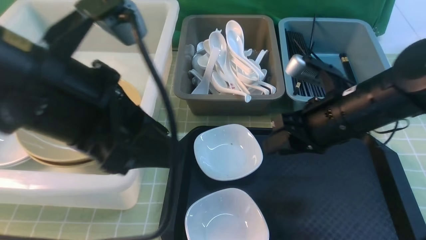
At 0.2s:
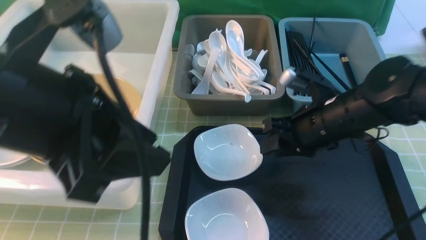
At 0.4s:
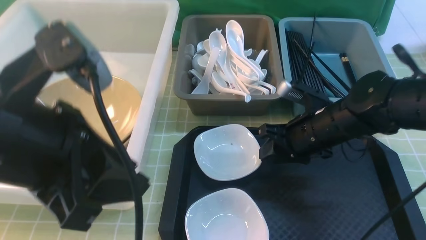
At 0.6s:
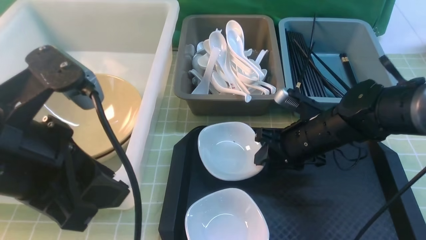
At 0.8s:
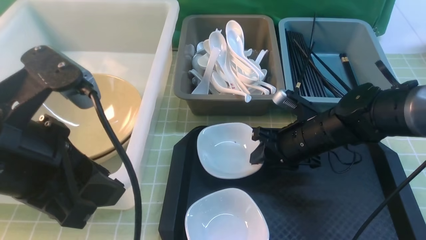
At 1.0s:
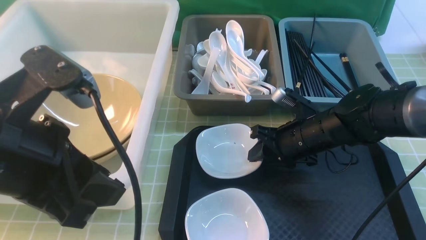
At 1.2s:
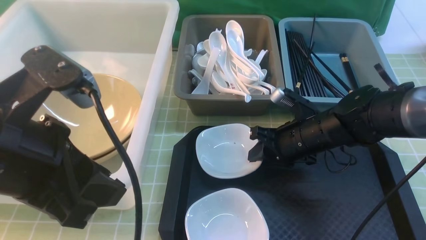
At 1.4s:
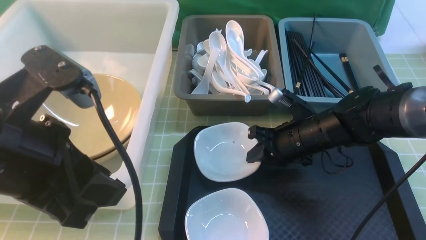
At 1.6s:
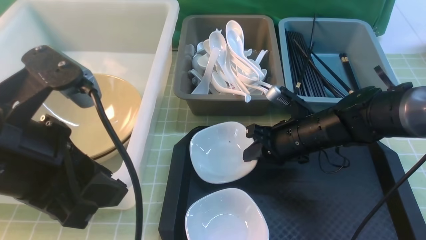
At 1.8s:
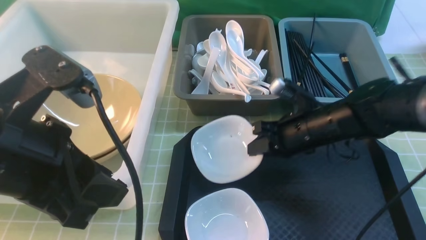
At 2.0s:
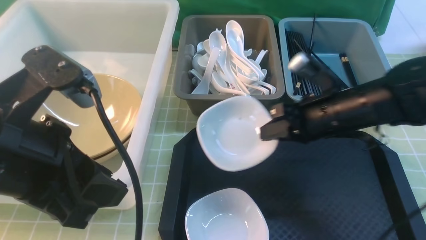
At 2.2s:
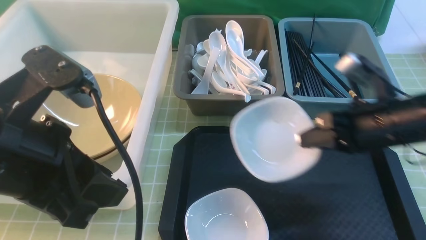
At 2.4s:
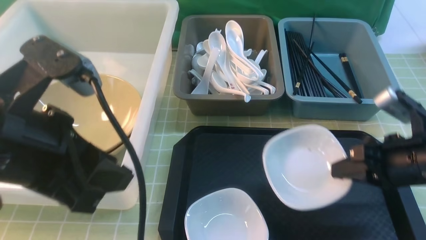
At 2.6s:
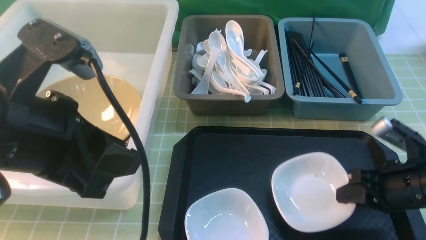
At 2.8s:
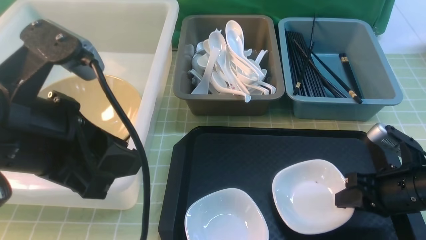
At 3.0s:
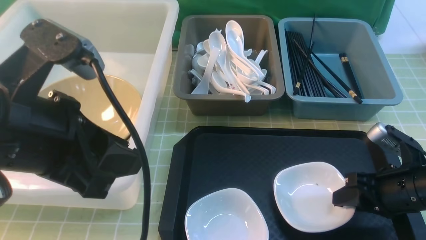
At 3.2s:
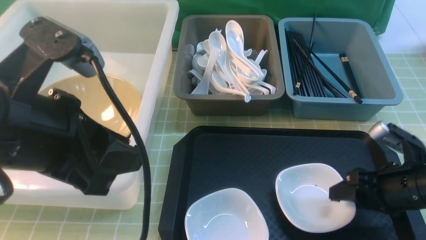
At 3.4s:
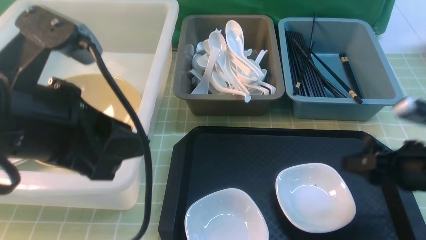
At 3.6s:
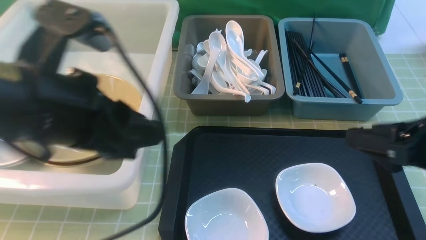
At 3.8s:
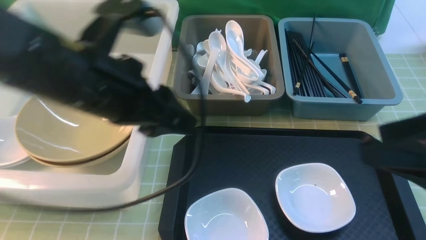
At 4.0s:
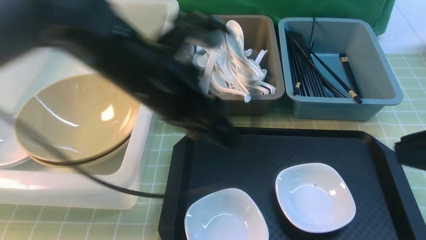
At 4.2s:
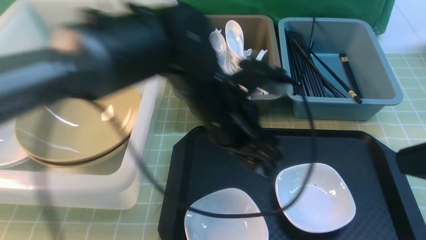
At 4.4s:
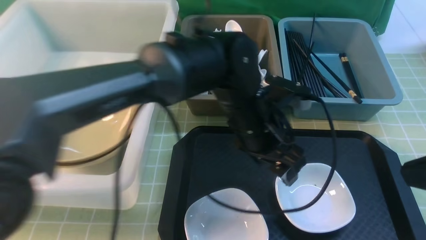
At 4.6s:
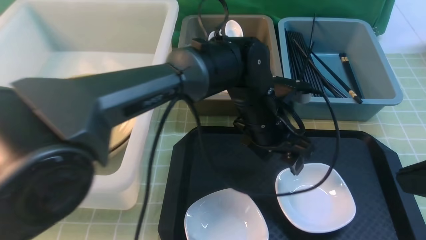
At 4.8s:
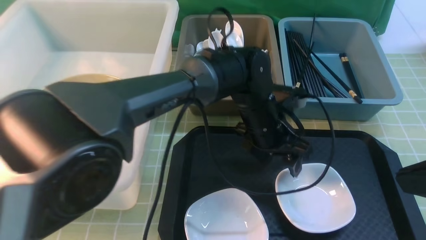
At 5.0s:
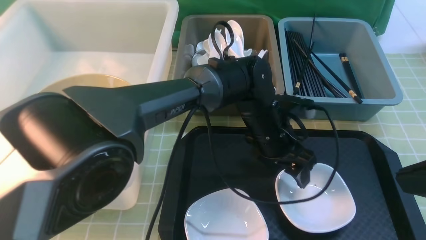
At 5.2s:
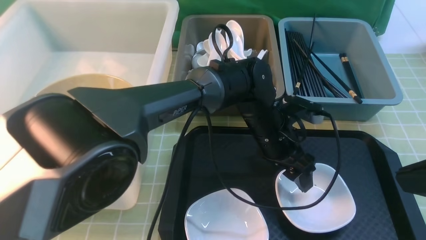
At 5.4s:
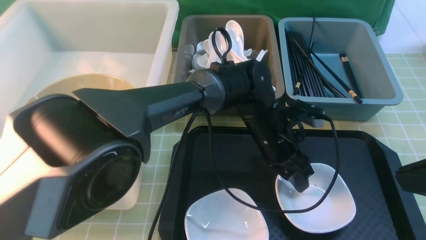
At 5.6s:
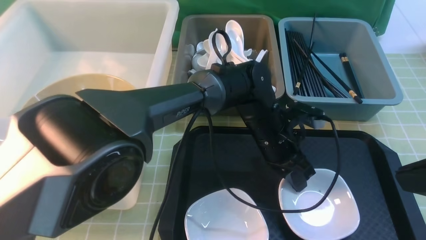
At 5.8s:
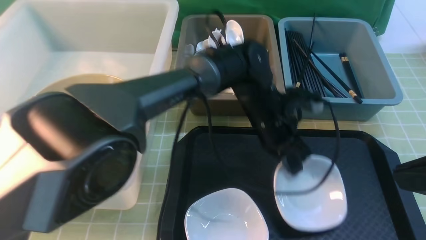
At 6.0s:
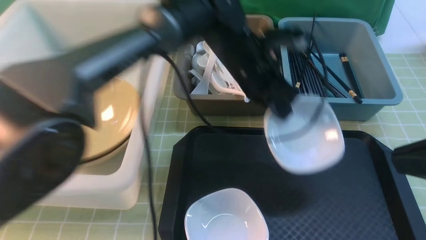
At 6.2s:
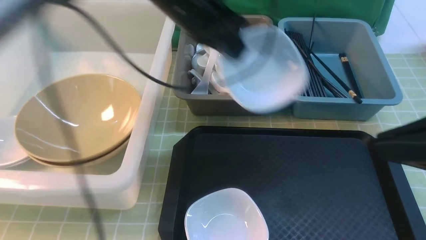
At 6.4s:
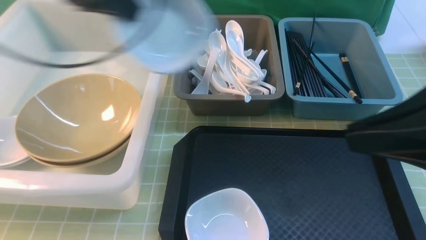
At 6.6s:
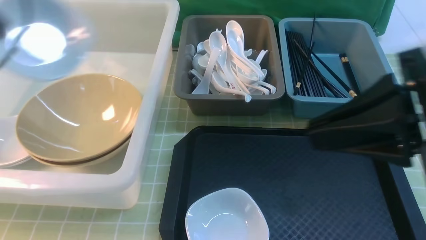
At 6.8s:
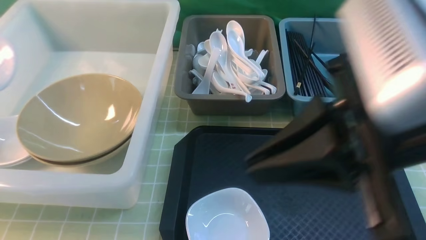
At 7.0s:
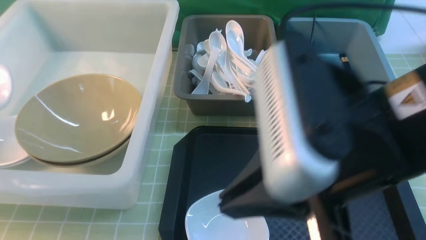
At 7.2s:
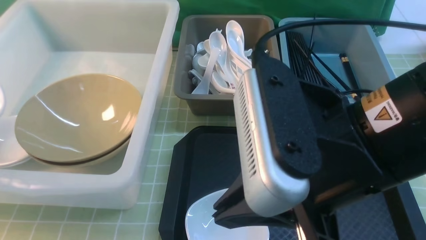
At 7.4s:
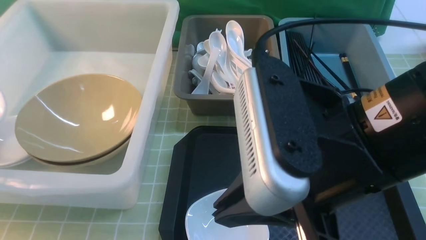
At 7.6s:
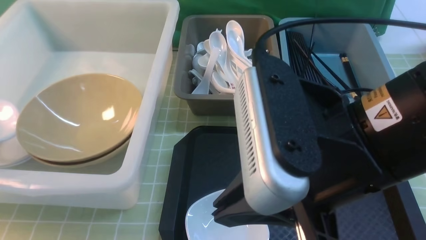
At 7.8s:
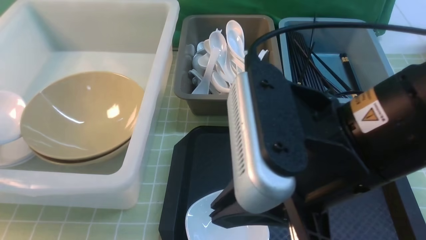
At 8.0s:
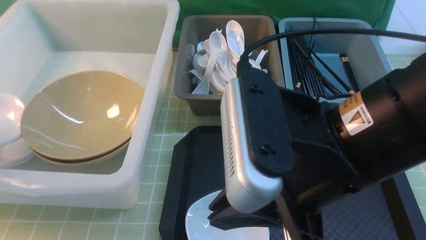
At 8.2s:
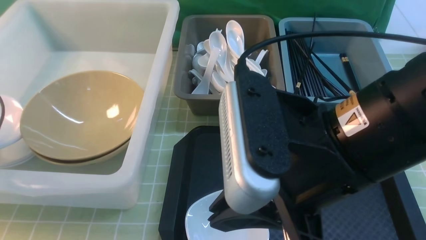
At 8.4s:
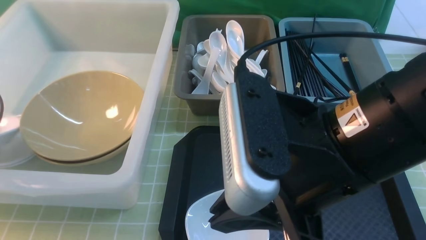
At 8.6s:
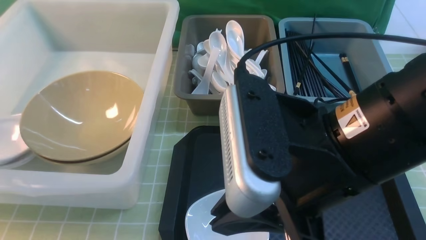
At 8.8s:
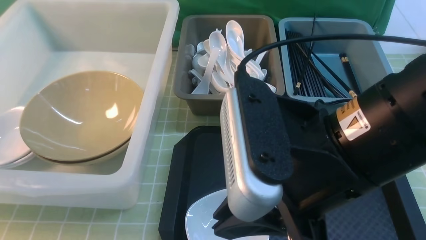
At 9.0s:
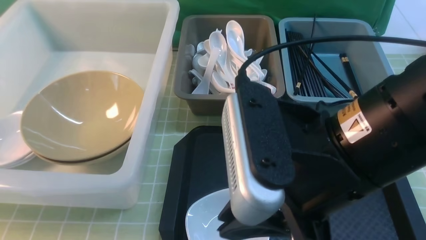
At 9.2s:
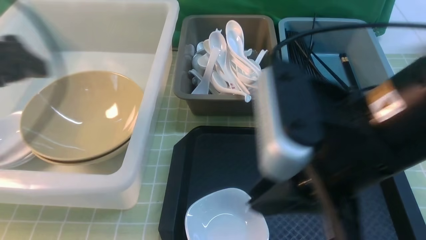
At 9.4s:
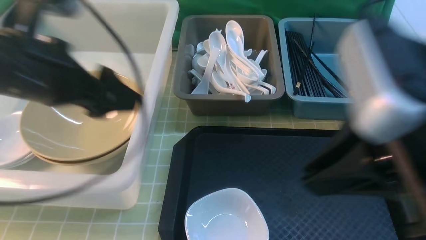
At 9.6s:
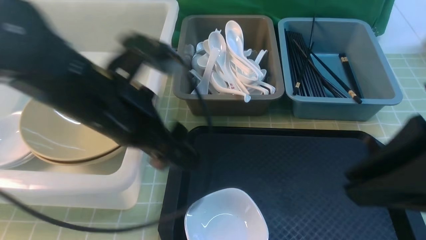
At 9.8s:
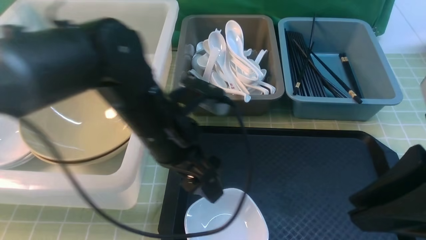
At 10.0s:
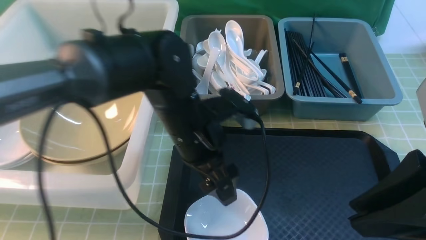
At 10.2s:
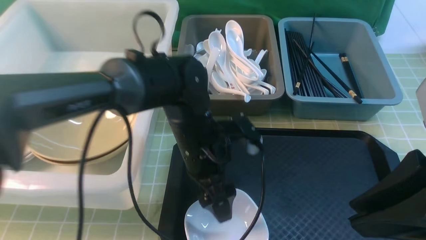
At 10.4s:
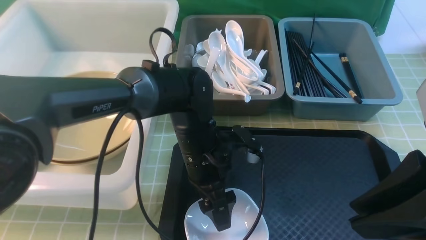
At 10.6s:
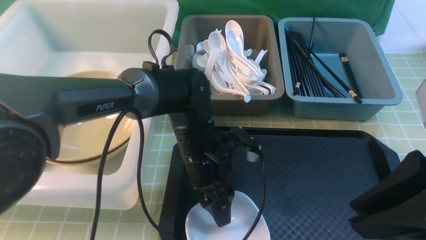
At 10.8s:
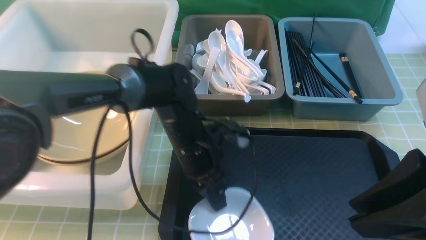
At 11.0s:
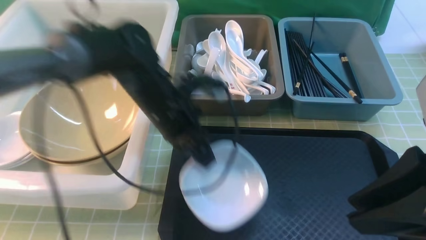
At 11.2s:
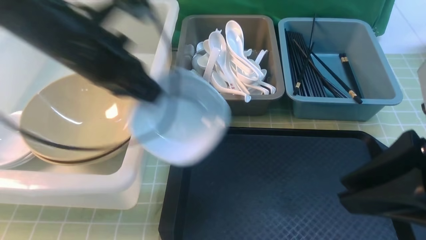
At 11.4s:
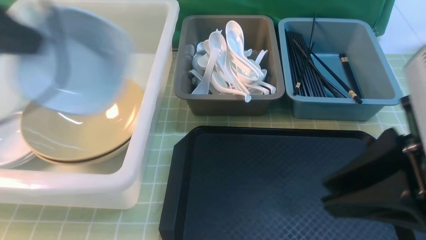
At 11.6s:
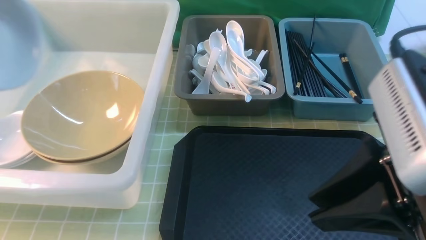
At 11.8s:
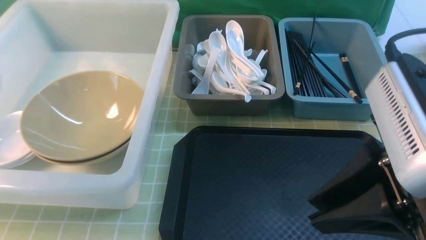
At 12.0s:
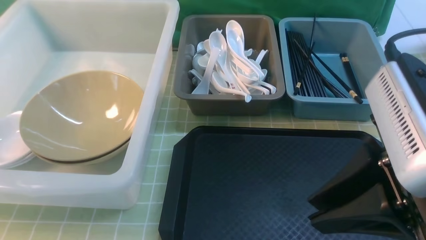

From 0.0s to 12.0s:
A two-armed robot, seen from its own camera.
Task of the whole recording: on green table put chopsticks spoon bowls plates into blue grey white boxes.
Step, from 0.0s to 1.8s: use the right arm to grab the plate.
Step, from 2.0s to 3.6s: use the right arm to put the plate on the tray.
Step, from 3.8s to 5.8s: use the left arm to grab the plate.
Step, from 6.2s to 9.0s: use the left arm to put the plate into the large storage box on the left.
Step, from 9.2s to 11.0s: use the left arm to grab the plate.
From 0.0s to 1.6s: The left gripper ends up about 5 cm from where it was. Meanwhile the right gripper moves downward, approximately 10 cm, and closes its fingers.
From 1.6s to 3.0s: The right gripper moves to the right and backward, roughly 15 cm, and opens up.
From 3.0s to 4.4s: The right gripper shifts approximately 20 cm upward and backward, and closes up. Meanwhile the left gripper goes some 30 cm to the right, forward and downward, and opens up.
From 4.4s to 6.0s: The left gripper shifts approximately 10 cm forward and upward, and closes its fingers.
From 6.0s to 7.6s: The left gripper heads to the left, covering some 40 cm; the right gripper is displaced to the left by about 15 cm.
From 7.6s to 9.0s: The left gripper moves to the right and upward, approximately 10 cm, and opens.
From 9.0s to 10.4s: The right gripper goes some 10 cm to the right. Meanwhile the left gripper goes some 35 cm to the right and downward.
From 10.4s to 12.0s: The left gripper heads to the left and upward, covering approximately 40 cm, and closes.

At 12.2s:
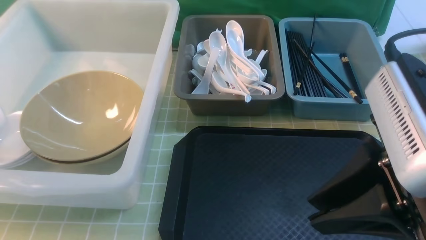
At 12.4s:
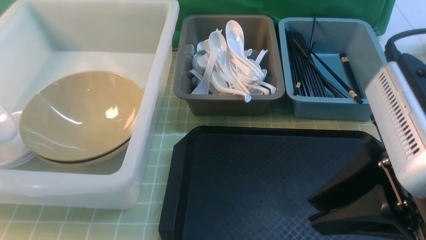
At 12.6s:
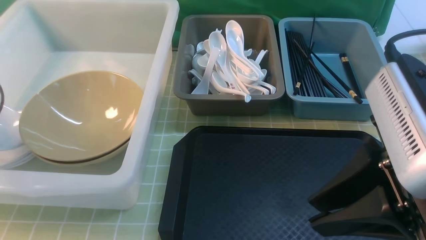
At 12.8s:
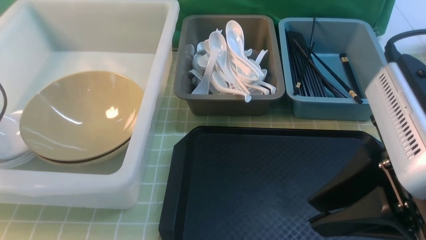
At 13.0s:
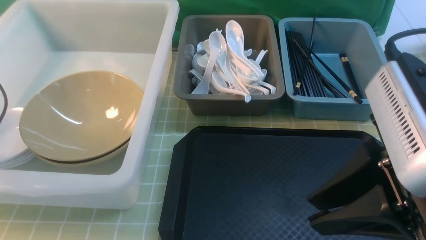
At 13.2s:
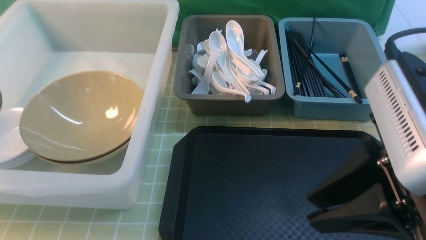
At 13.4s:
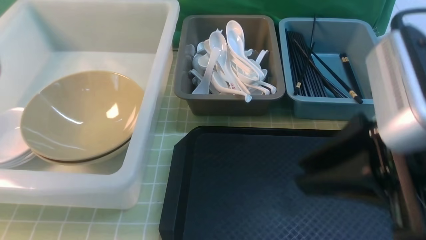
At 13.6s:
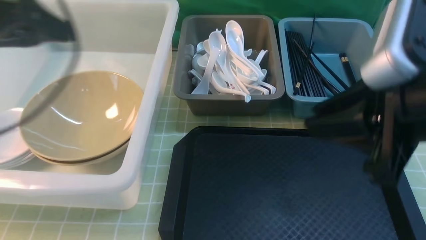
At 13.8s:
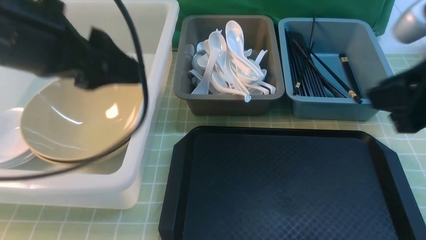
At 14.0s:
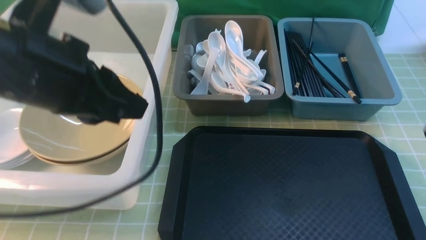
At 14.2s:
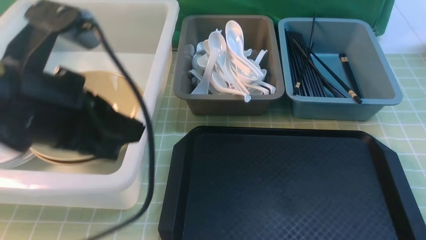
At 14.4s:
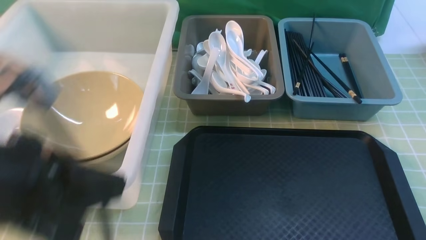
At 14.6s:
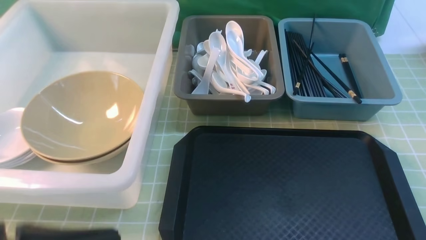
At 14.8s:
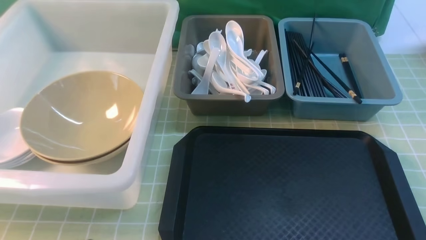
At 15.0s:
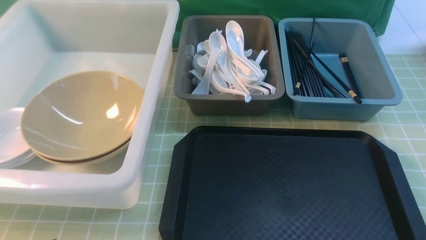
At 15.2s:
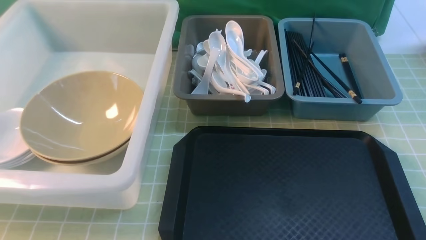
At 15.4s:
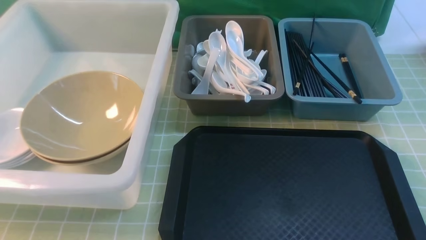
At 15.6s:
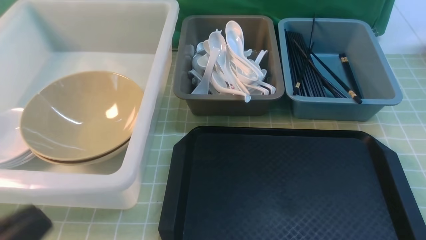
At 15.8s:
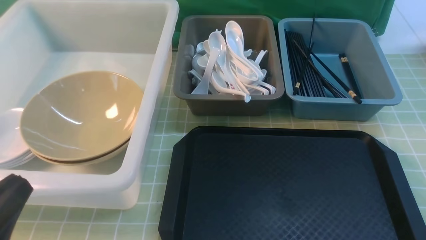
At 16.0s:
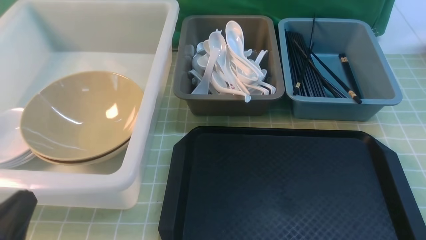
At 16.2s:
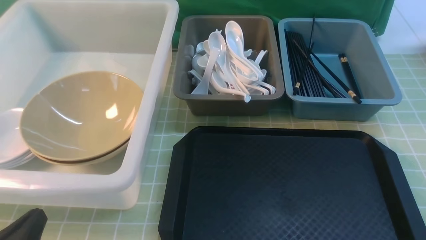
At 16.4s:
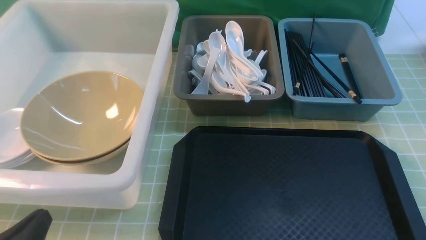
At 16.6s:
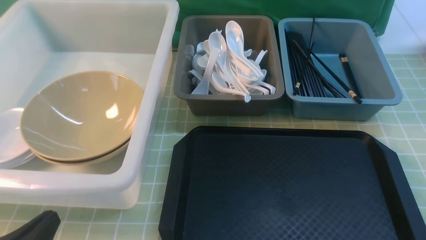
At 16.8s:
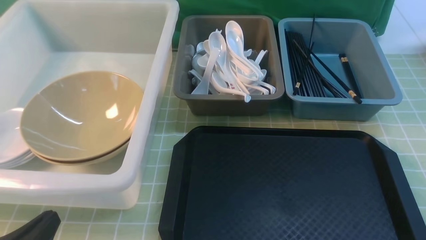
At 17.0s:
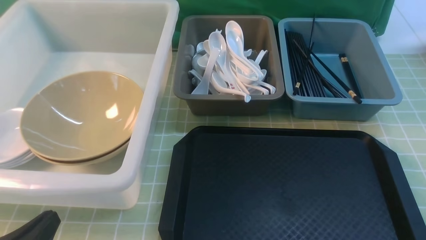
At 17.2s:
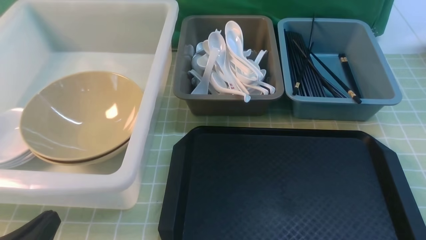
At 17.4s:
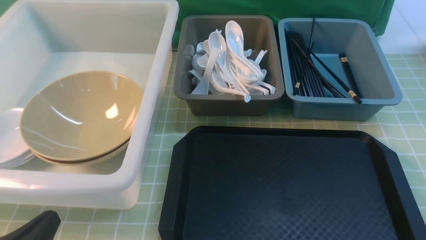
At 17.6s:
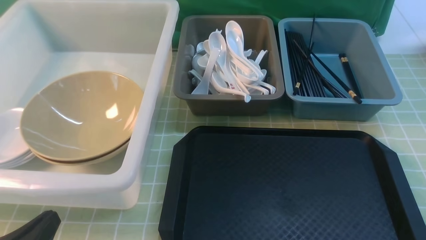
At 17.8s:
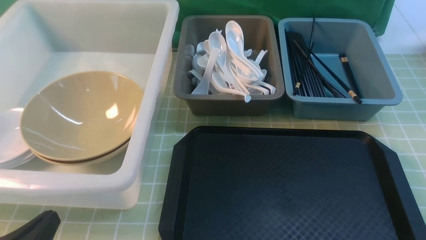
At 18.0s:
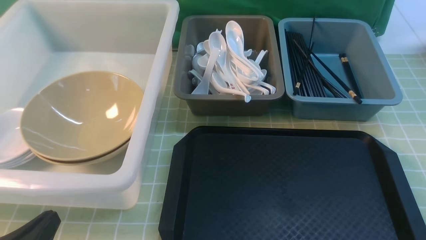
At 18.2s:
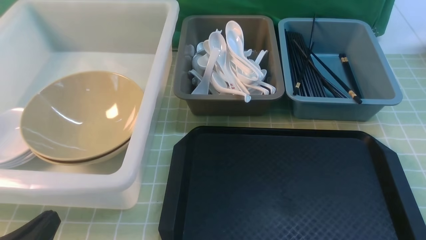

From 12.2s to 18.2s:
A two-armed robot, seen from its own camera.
Task of the whole recording: on green table put chopsticks spoon bowls plates into blue grey white boxes.
Step, from 12.2s to 13.4s: use the left arm to put the plate into the large storage box on the left.
From 12.2s to 13.8s: The left gripper heads to the right, covering roughly 25 cm, and opens up; the right gripper travels to the right and forward by about 10 cm.
From 13.8s to 15.2s: The left gripper shifts some 25 cm backward, and closes its fingers. The right gripper travels backward and downward by roughly 20 cm, and closes its fingers.
From 15.2s to 16.6s: The left gripper is displaced downward and forward by about 15 cm.
